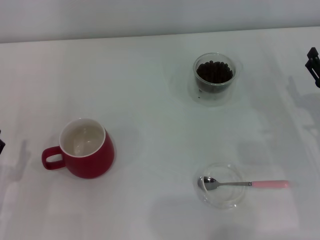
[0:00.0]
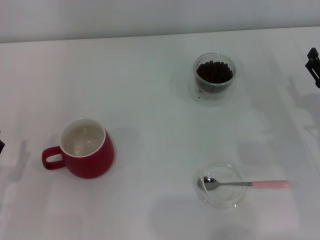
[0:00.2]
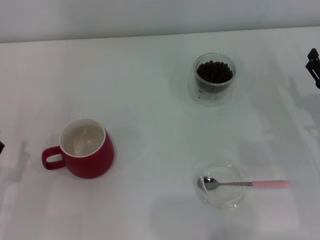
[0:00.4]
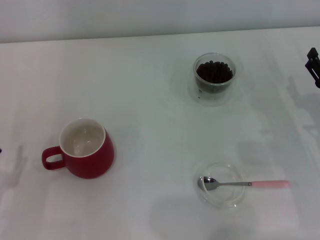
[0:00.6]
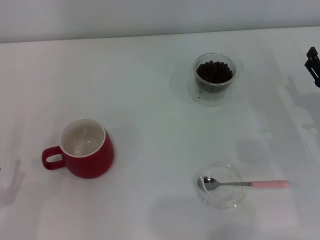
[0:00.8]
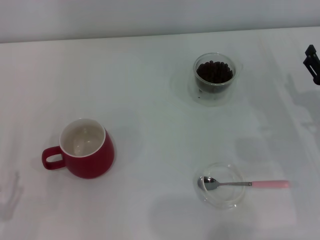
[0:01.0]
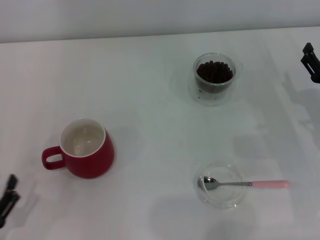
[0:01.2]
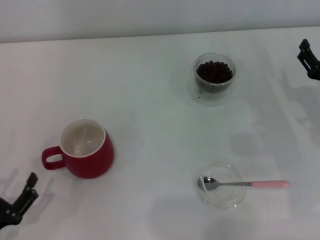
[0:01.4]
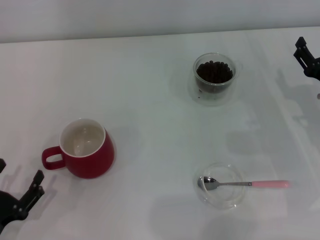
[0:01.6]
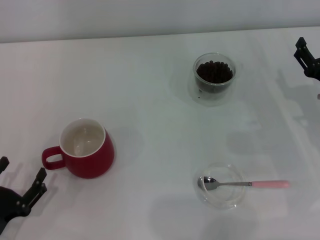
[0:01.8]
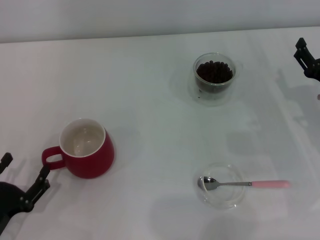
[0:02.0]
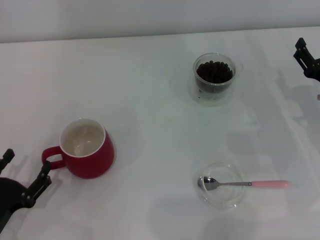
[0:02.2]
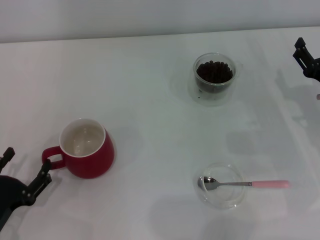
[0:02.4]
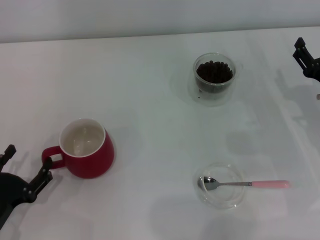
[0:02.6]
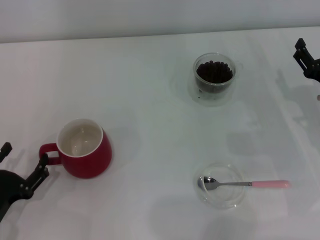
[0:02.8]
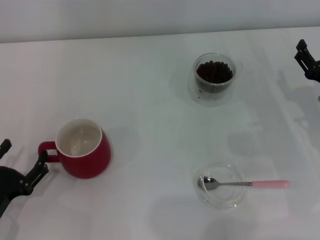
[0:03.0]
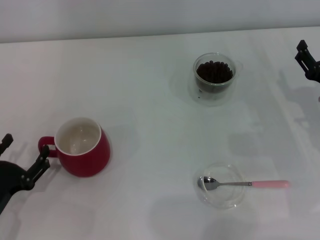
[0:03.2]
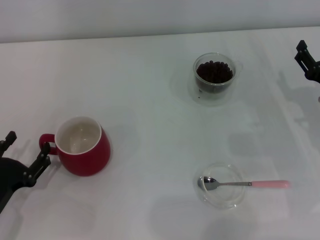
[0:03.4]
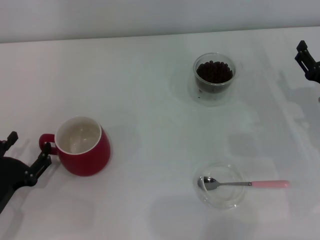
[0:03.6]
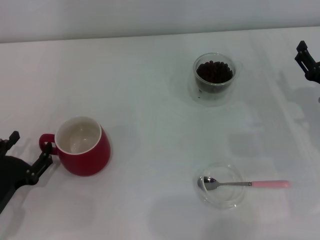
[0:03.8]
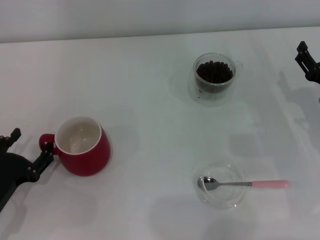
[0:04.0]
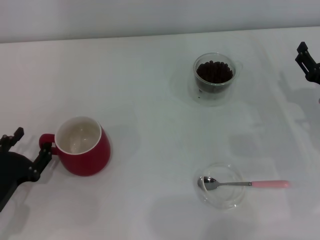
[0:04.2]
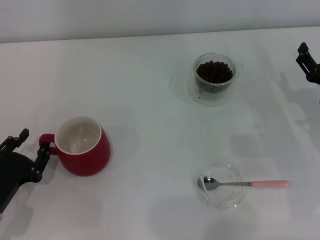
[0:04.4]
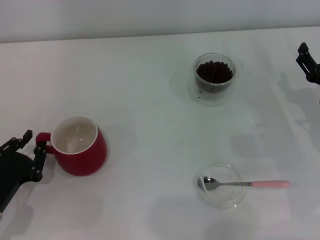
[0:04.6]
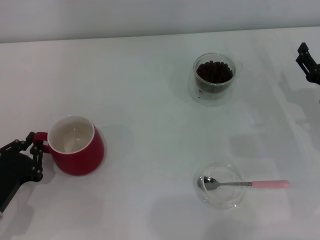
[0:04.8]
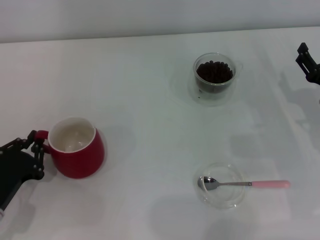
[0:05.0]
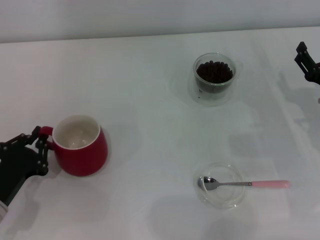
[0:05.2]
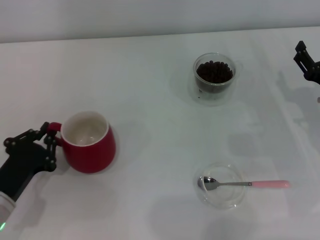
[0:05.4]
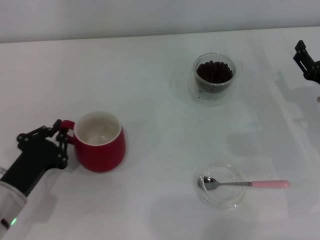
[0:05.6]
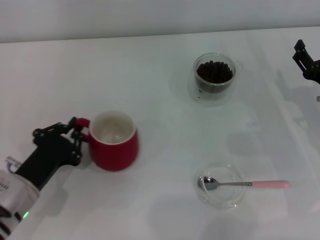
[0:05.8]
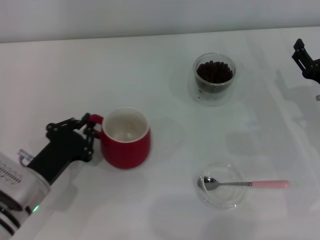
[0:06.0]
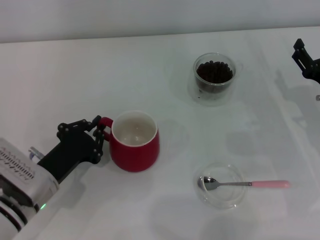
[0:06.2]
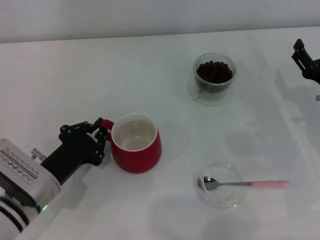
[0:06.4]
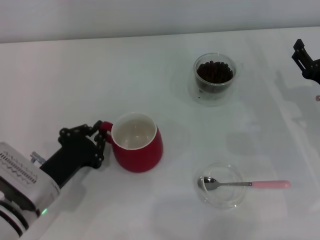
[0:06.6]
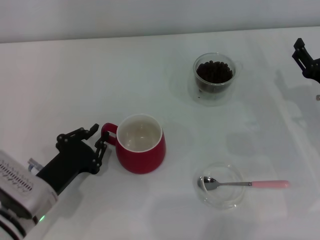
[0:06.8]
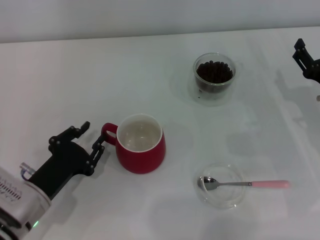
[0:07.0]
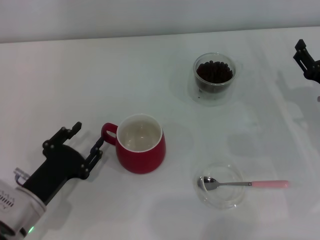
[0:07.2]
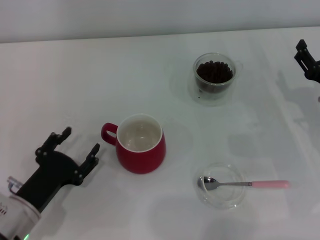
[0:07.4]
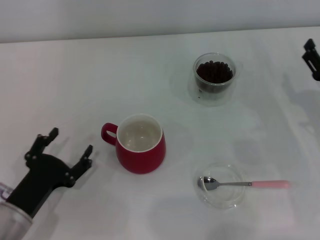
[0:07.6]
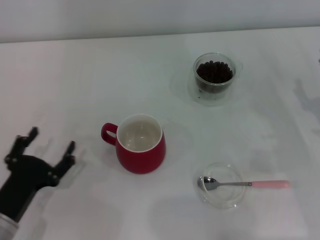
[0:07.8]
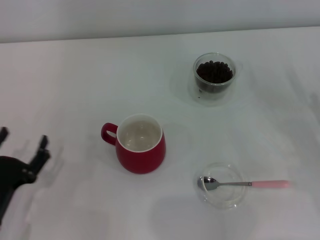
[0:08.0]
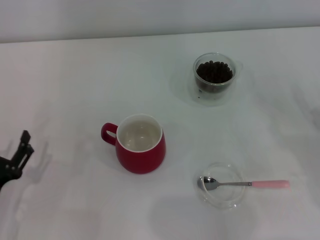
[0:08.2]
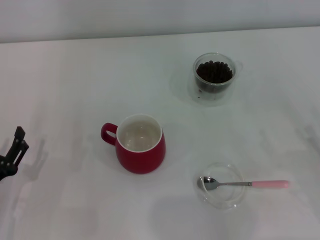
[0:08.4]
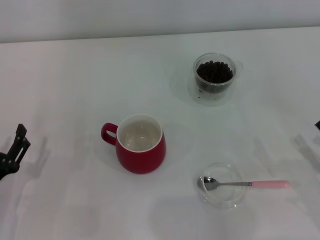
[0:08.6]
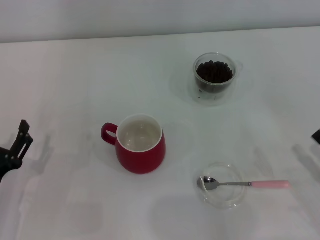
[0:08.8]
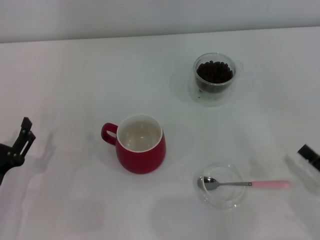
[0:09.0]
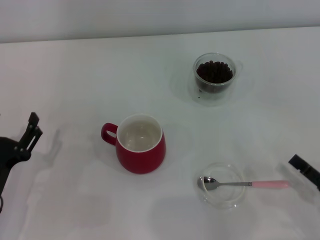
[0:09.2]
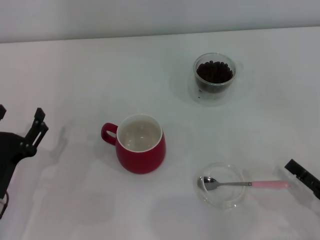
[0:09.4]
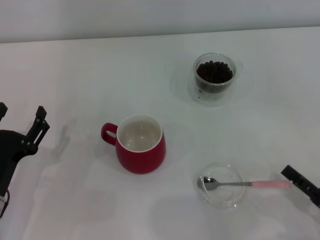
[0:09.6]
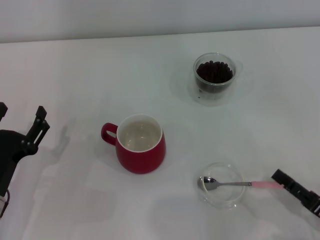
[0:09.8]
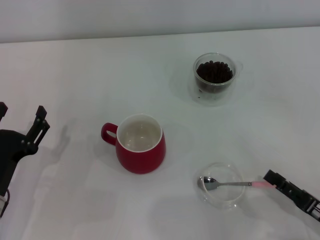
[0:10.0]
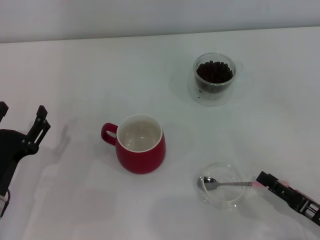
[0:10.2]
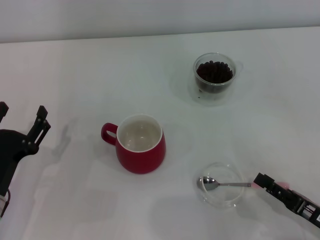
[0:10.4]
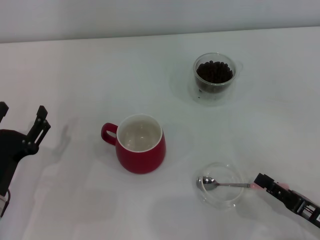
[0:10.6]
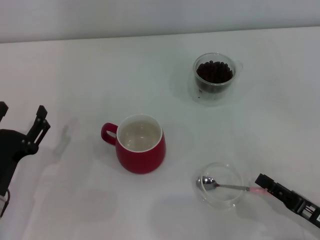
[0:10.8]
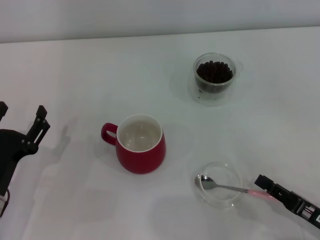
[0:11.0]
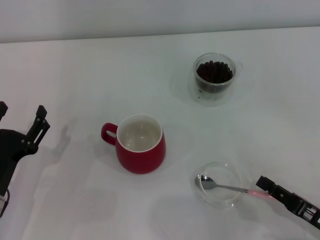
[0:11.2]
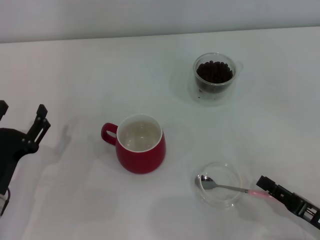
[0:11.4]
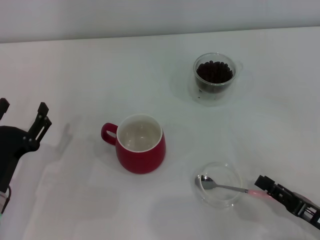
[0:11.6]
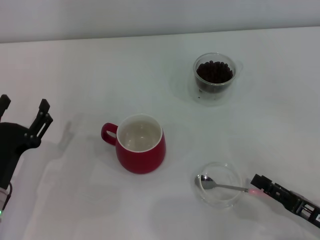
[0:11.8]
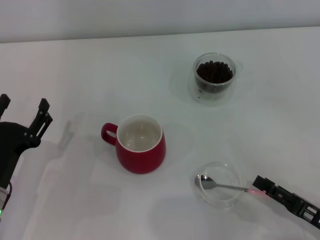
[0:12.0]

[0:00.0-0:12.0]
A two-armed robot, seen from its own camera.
Task of the whole recording: Use a pink spoon to take out the coffee beans from the glass and pour them into the red cup.
Step, 0:00.0 to 0:07.4: Move the cup to the center of view with the left gripper.
0:01.6 to 0:03.0: The grippers stay close to where they were, moving slightly.
0:03.0 to 0:04.4: There are only small adjustments of the grippers.
0:04.4 to 0:06.0: The left gripper moves to the right, some 5 cm, and closes.
0:06.0 to 0:07.6: The left gripper changes place by roughly 5 cm, and opens its fingers.
0:07.6 to 0:09.0: The right gripper heads backward, covering about 15 cm.
0:09.0 to 0:10.4: The grippers move only a little.
0:10.4 to 0:12.0: Both grippers stay about where they are.

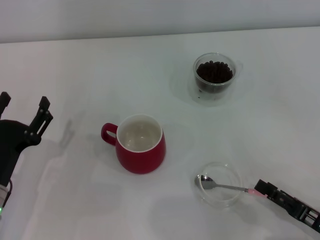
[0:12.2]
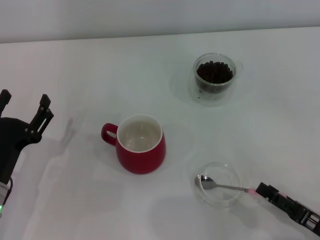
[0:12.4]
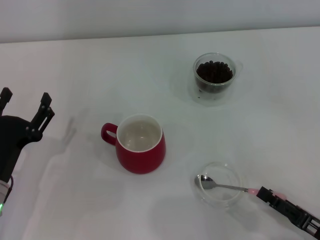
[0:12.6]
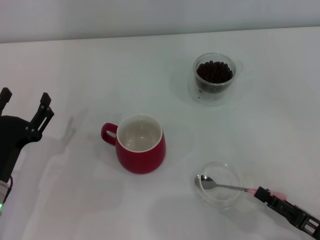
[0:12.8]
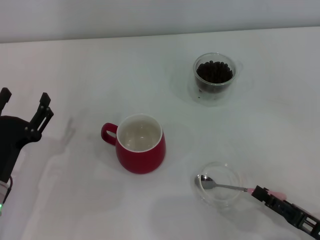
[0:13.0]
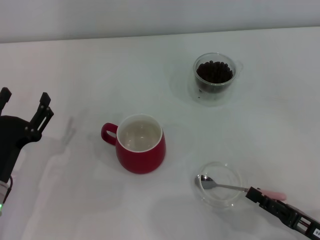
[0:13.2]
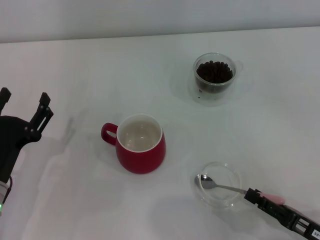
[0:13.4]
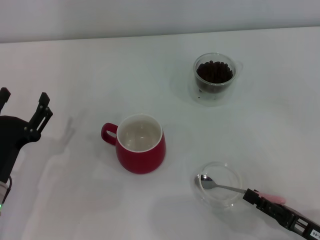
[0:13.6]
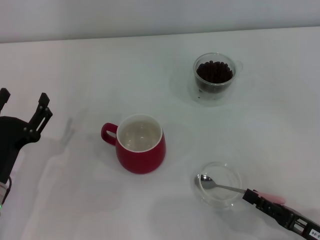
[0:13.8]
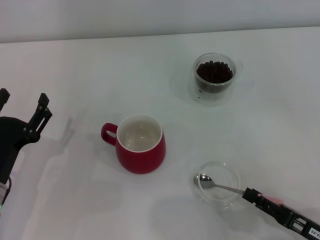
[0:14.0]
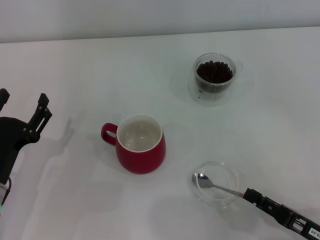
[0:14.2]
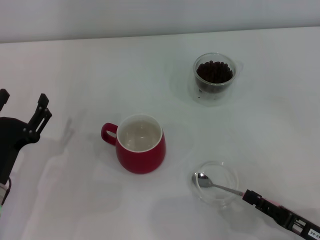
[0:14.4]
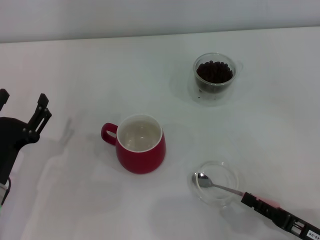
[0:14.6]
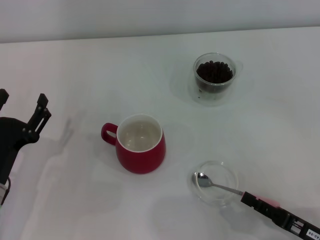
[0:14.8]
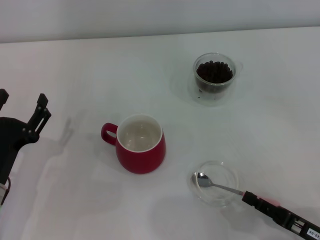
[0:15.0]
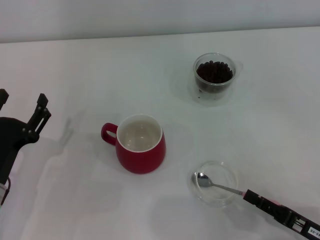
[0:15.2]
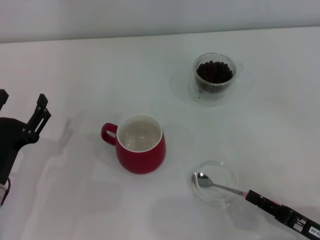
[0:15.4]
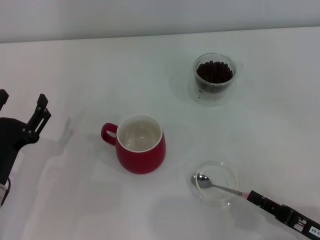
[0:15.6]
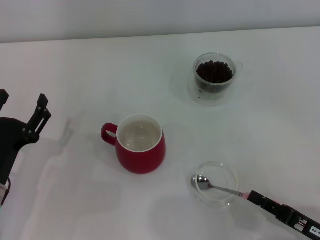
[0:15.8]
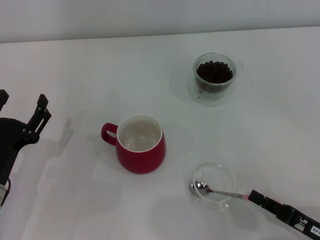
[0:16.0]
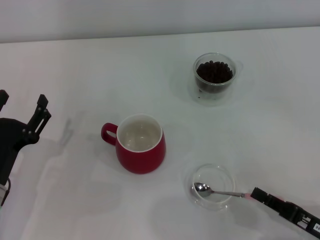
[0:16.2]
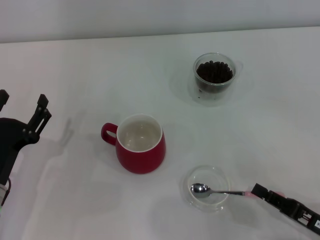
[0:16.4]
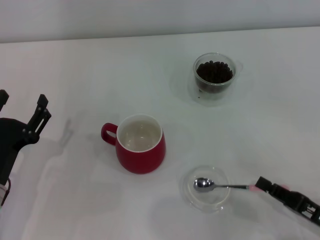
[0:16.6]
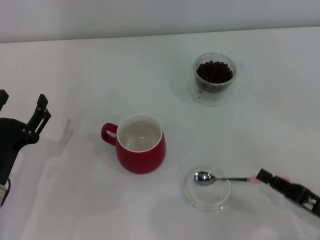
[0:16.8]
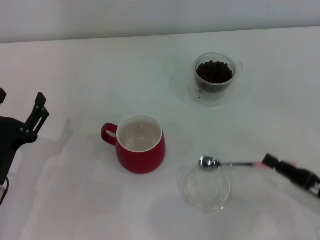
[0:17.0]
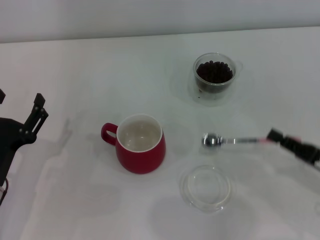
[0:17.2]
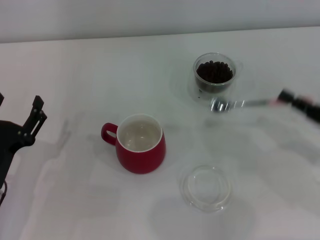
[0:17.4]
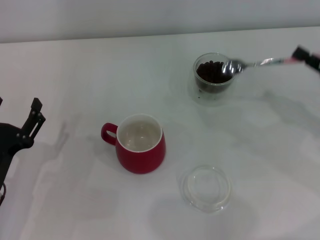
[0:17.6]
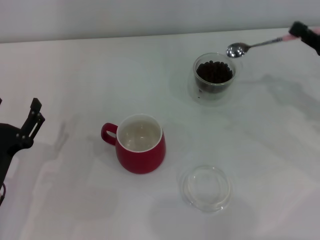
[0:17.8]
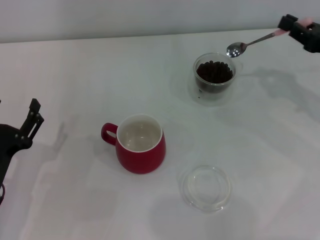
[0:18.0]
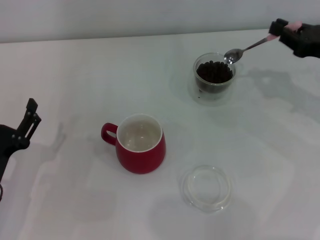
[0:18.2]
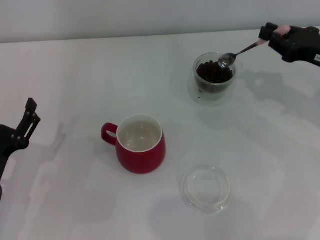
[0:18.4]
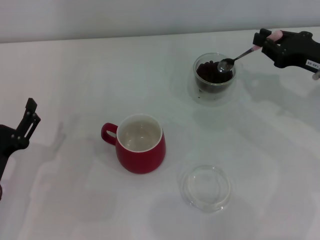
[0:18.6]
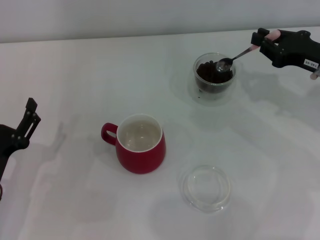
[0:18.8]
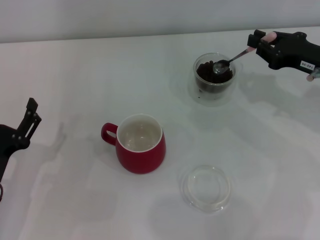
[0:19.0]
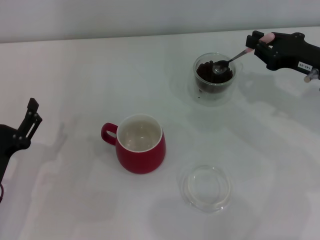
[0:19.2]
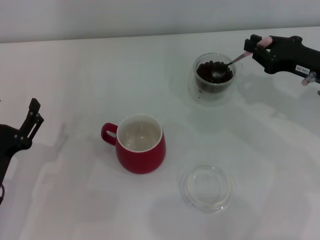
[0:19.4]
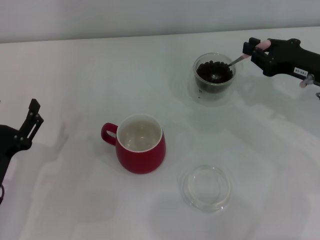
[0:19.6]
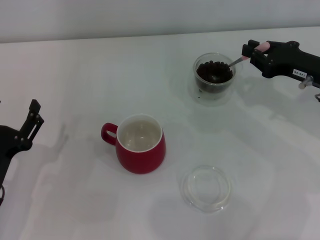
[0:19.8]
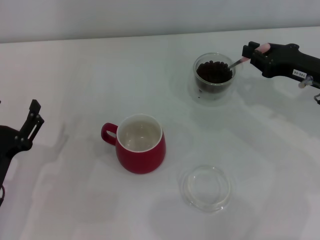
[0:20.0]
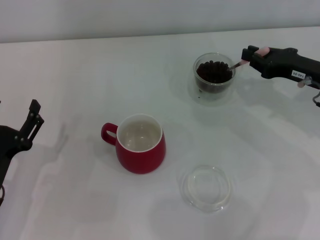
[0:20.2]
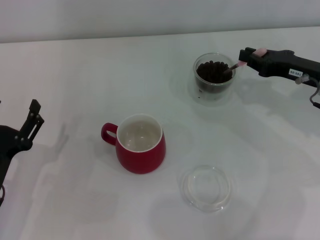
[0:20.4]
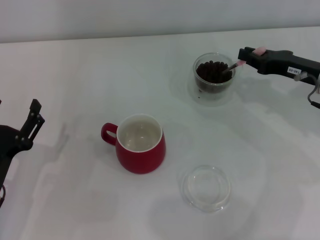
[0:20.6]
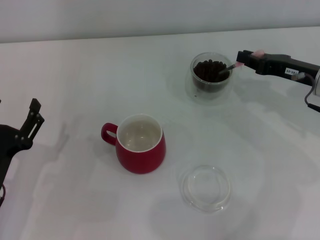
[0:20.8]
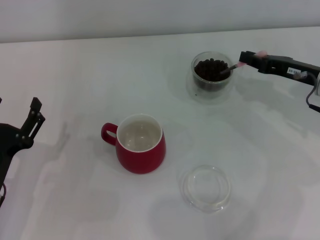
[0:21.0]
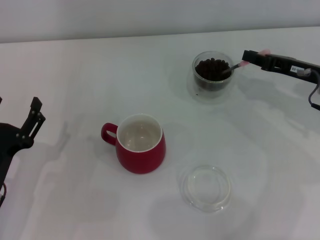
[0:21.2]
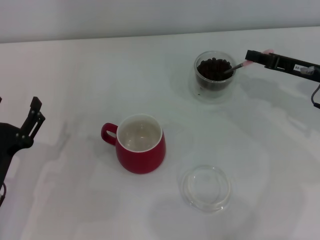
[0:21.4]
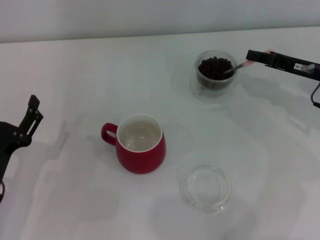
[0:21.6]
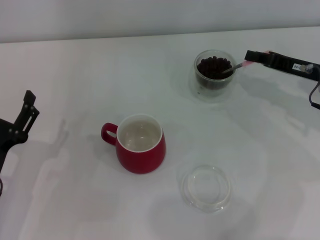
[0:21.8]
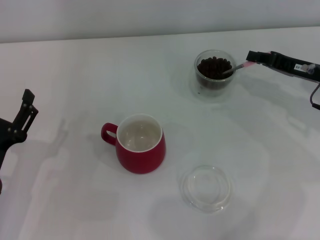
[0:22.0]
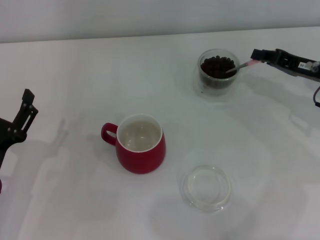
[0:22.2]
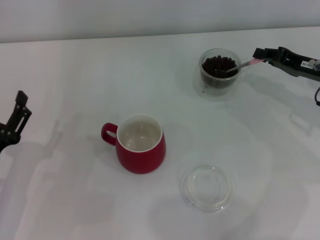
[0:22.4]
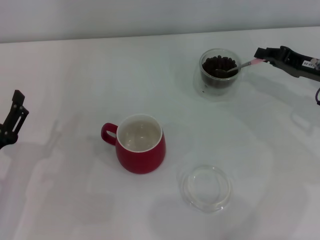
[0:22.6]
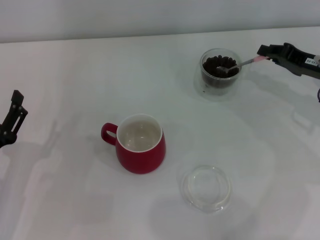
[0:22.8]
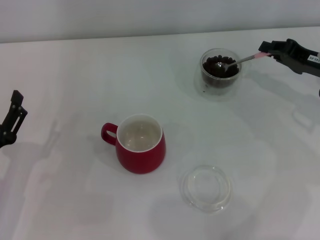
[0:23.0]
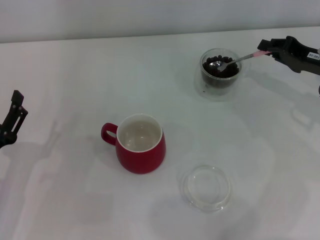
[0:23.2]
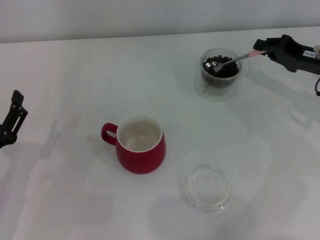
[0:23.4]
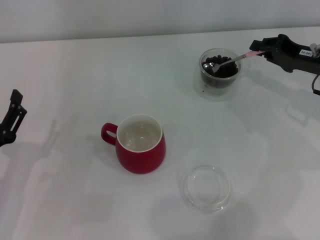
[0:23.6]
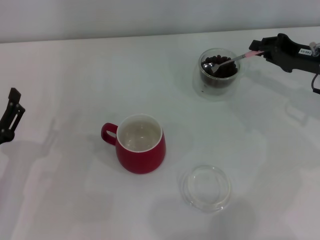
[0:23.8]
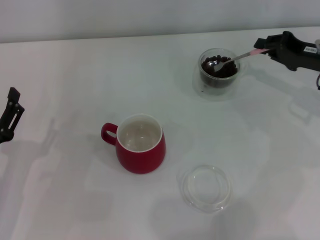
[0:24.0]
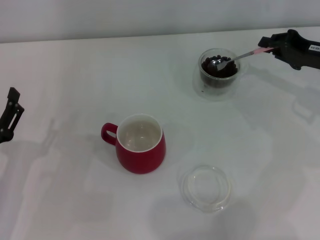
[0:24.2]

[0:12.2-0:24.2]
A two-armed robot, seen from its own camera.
Task of the whole recording: Use a pink spoon to take out the coffee beans from the glass and pour them into the red cup.
Step, 0:12.2 to 0:17.0: Pick up the spoon with the right gripper.
0:12.2 to 0:13.8: Both grippers stay put.
0:13.8 to 0:15.2: The right gripper closes.
0:15.2 to 0:16.6: The right gripper closes up.
0:16.6 to 0:18.2: The right gripper moves forward and upward, approximately 25 cm.
0:18.2 to 0:19.8: There are only small adjustments of the grippers.
0:21.2 to 0:22.6: The grippers stay close to where they were, moving slightly.
0:22.6 to 0:24.2: The grippers make only small movements.
